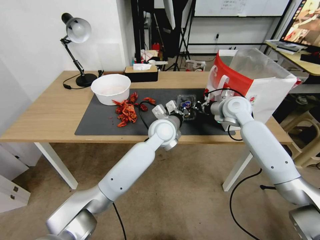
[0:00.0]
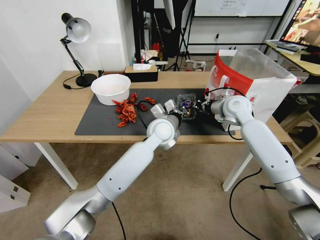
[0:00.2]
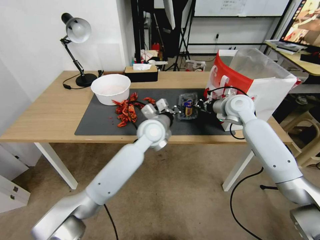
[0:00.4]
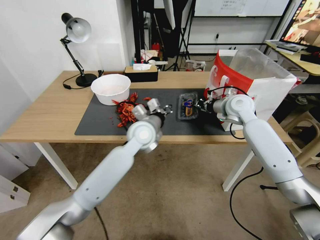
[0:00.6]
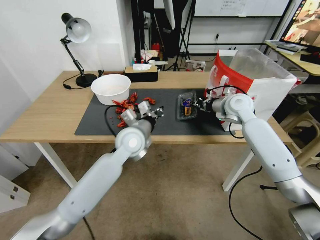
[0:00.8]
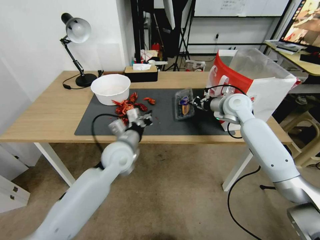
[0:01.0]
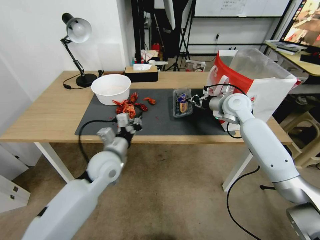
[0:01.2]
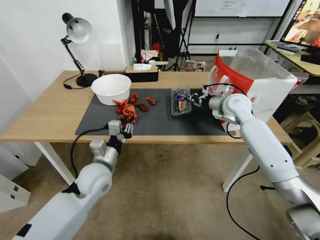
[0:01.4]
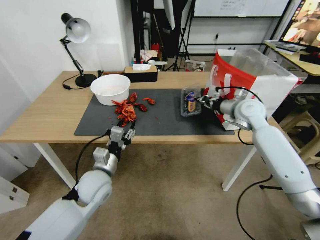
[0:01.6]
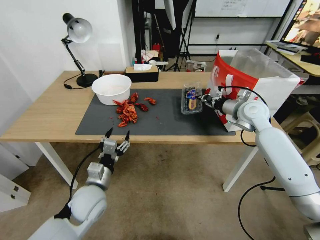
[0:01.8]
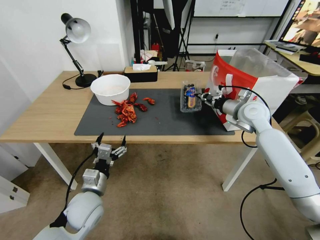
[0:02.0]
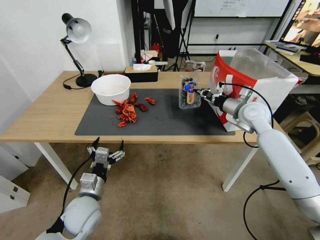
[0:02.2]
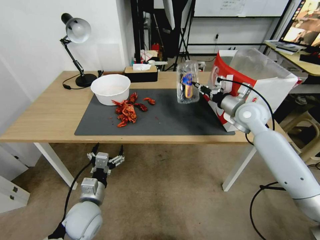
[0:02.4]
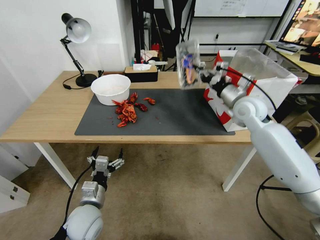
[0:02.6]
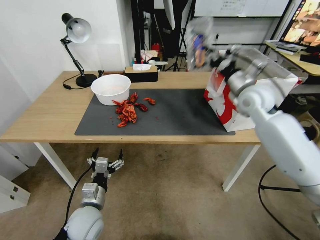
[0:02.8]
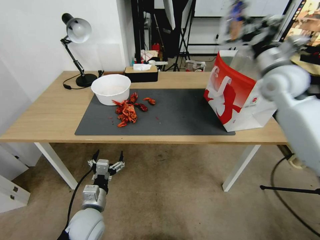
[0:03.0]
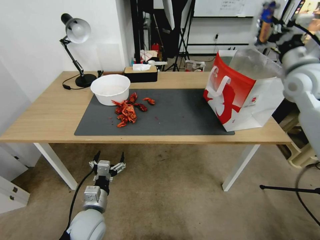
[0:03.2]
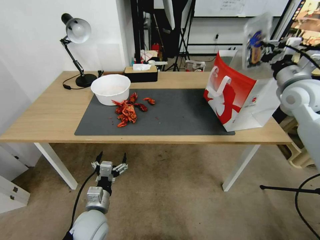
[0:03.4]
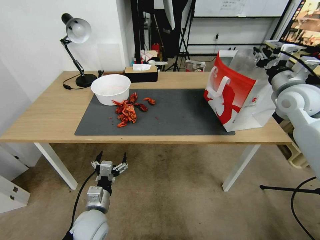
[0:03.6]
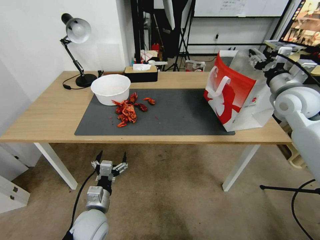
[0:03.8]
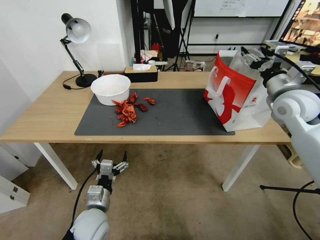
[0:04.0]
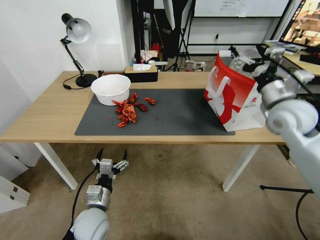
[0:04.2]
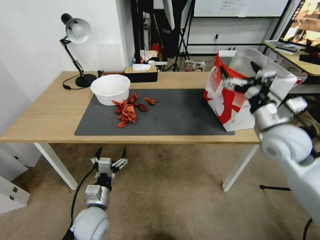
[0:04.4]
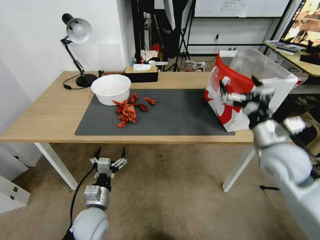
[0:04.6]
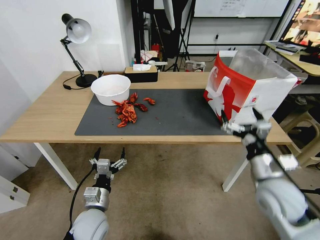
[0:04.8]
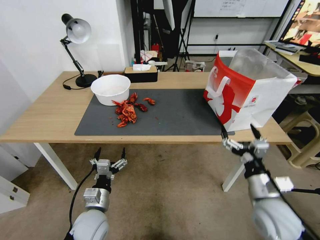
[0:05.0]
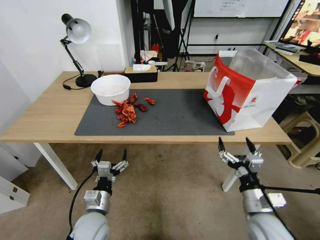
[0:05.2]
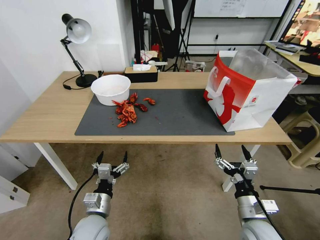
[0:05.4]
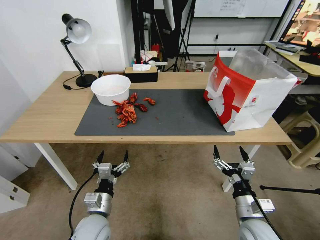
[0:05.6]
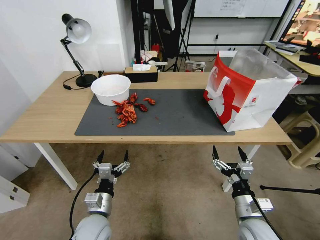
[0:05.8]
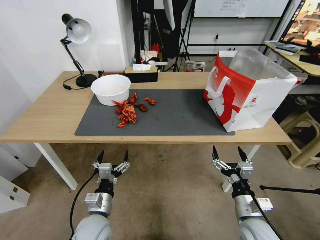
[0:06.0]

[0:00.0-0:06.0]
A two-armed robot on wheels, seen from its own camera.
Task of the whole recording: Close the takeout container lid, then place the container into the takeout bag.
0:00.0 to 0:01.6: The left gripper heads to the left and backward, covering roughly 25 cm, and opens.
0:01.6 to 0:03.0: The left gripper is displaced backward and downward by approximately 10 cm, and opens up, while the right gripper moves upward, roughly 15 cm.
0:03.0 to 0:04.4: The right gripper shifts approximately 15 cm backward and downward, and opens up.
0:04.4 to 0:06.0: The right gripper is displaced downward and backward by roughly 30 cm.

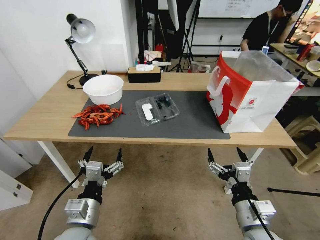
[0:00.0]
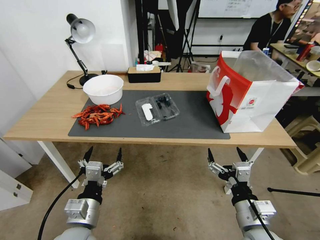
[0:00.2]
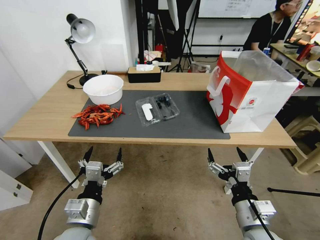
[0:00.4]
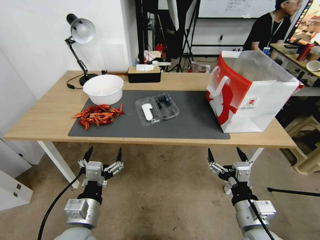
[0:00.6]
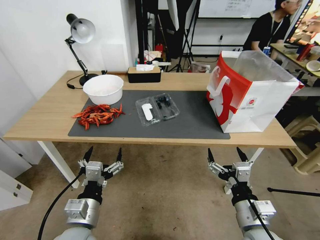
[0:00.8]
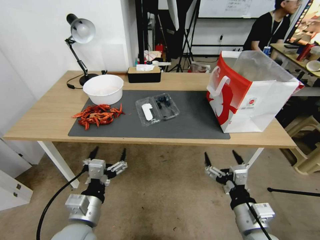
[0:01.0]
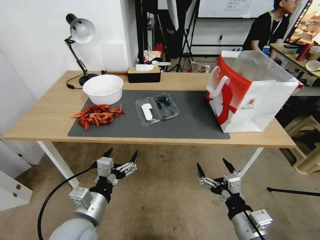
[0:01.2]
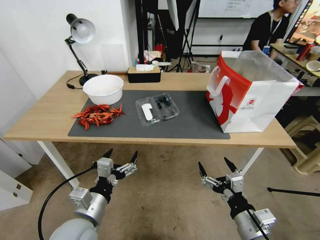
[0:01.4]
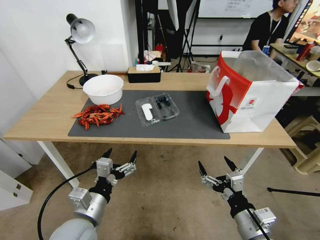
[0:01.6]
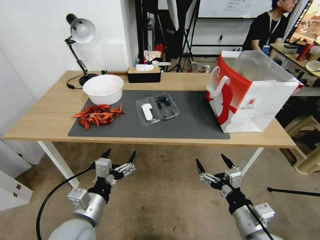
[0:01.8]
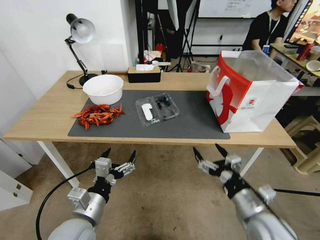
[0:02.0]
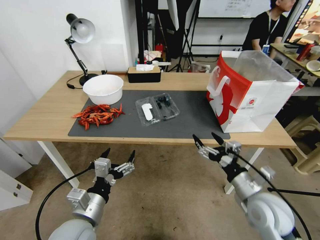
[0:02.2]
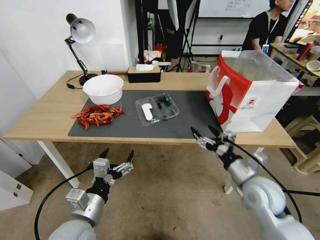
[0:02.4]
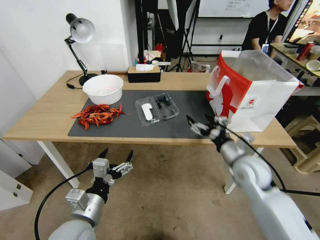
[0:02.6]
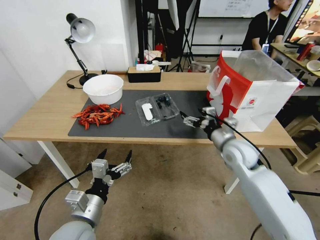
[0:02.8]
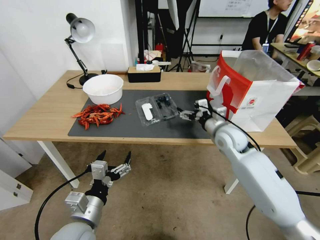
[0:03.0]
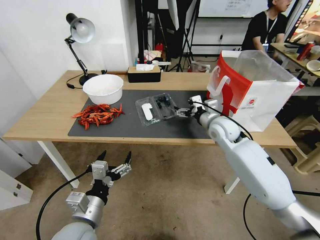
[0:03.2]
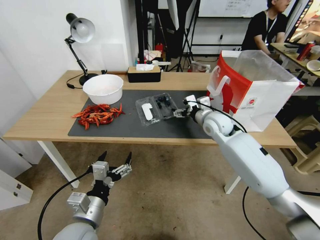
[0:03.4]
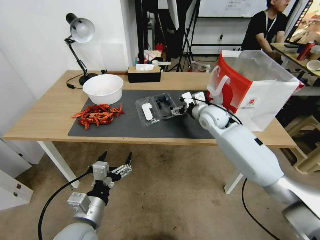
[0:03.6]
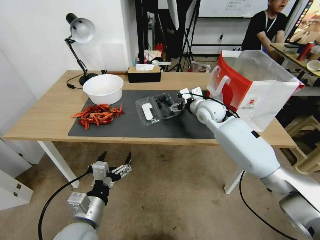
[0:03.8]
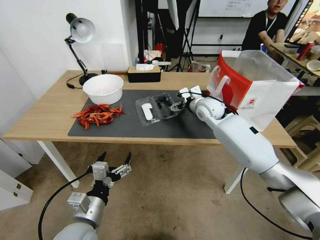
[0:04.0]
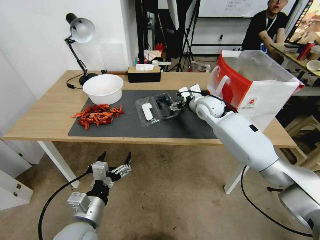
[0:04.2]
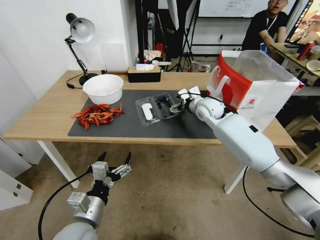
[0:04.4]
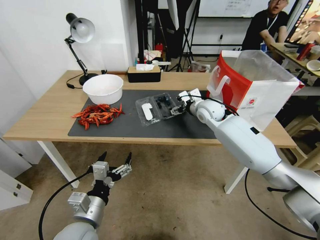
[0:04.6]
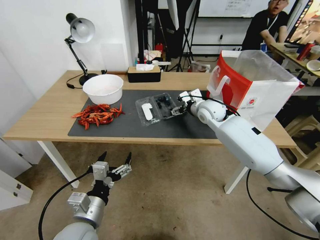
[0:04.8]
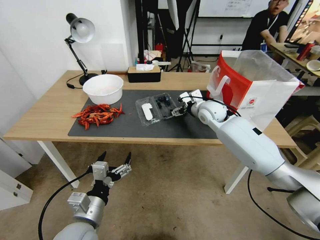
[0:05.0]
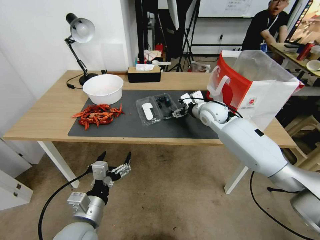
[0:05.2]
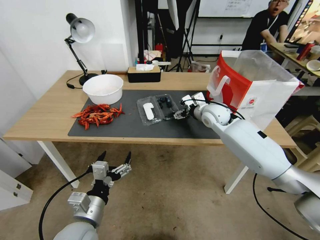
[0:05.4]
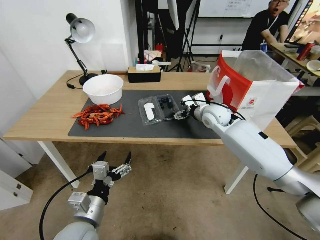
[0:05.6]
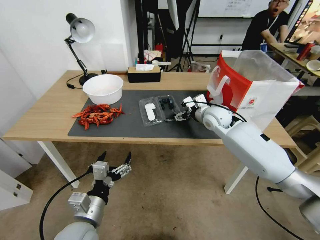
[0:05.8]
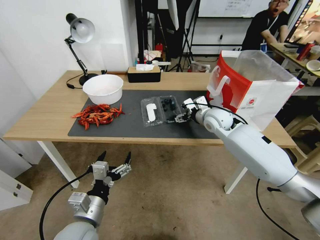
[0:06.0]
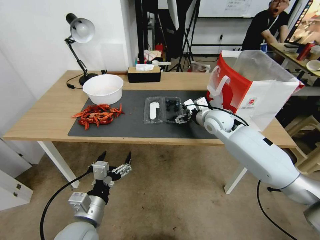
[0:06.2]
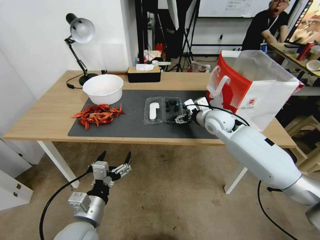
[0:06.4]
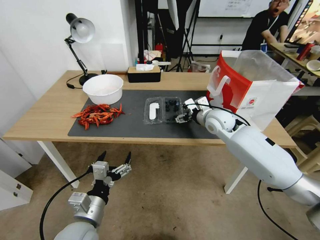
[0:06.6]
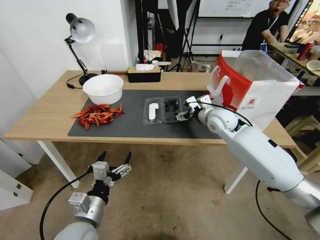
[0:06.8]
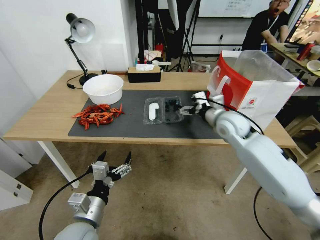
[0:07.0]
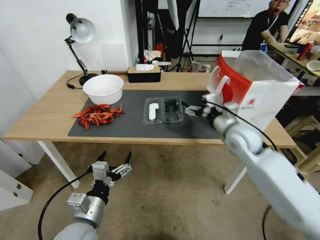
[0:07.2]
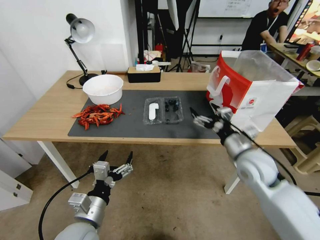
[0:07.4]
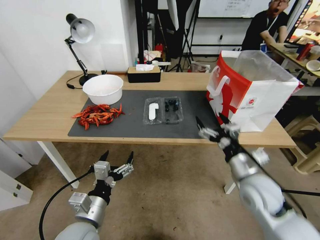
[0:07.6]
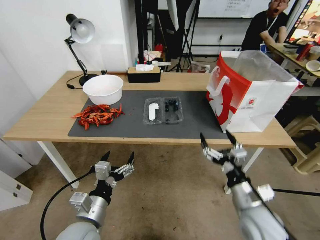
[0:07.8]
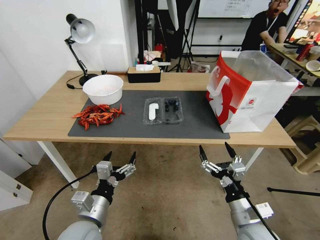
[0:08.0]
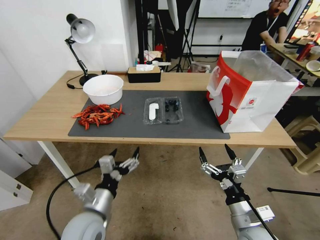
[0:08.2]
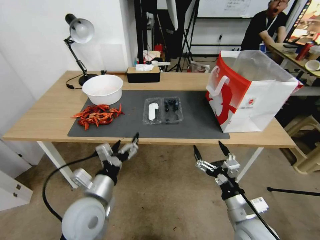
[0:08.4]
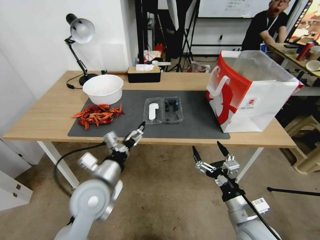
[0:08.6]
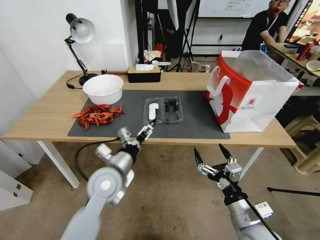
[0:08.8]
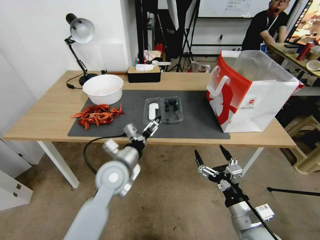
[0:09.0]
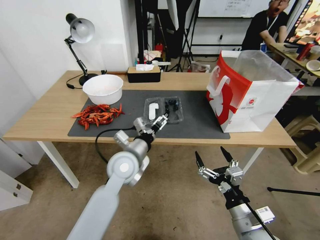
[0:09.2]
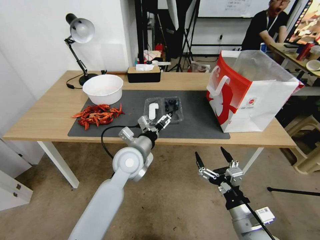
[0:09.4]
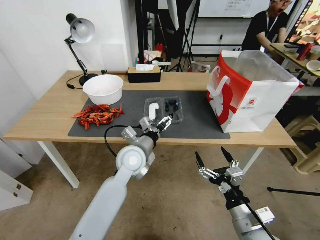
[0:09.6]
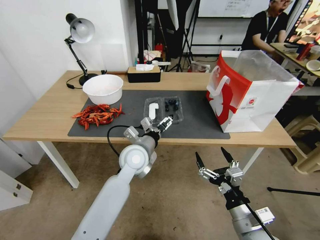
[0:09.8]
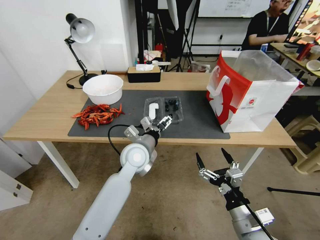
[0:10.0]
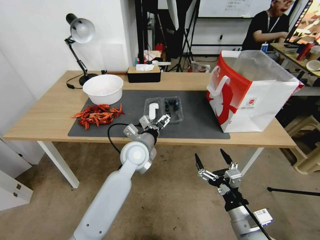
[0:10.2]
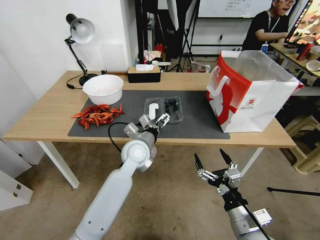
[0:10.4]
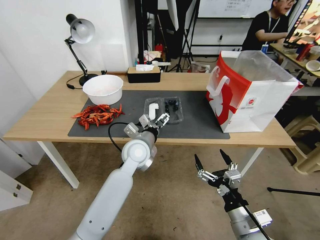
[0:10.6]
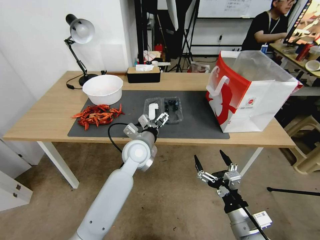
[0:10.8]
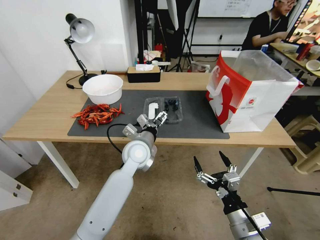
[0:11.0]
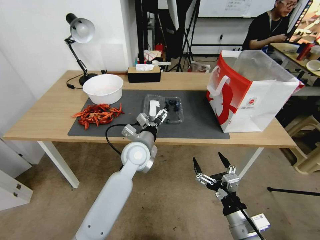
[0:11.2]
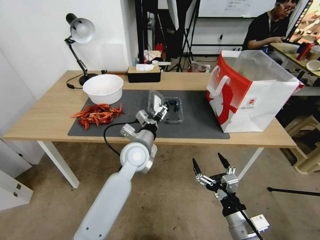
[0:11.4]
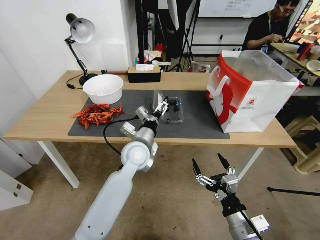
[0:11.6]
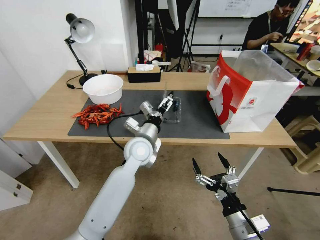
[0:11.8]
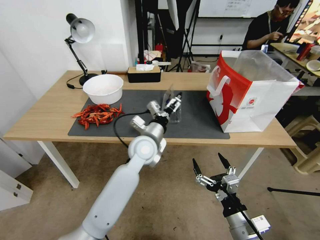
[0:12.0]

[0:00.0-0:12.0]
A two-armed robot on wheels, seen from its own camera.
Task of the whole recording: Close the takeout container lid, then place the container into the takeout bag.
0:01.6 to 0:03.0: The right gripper goes about 30 cm forward.
0:03.0 to 0:04.4: The right gripper travels forward by roughly 10 cm.
0:04.4 to 0:06.0: The right gripper shifts by roughly 5 cm.
0:06.0 to 0:07.6: The right gripper shifts about 25 cm backward.
0:07.6 to 0:09.0: The left gripper is displaced forward and to the right by roughly 15 cm. The right gripper shifts about 10 cm backward.
0:09.0 to 0:10.4: The left gripper is displaced forward and to the right by approximately 10 cm.

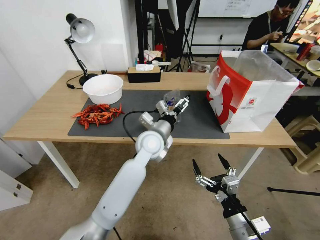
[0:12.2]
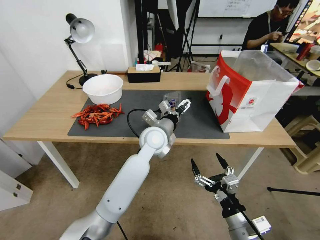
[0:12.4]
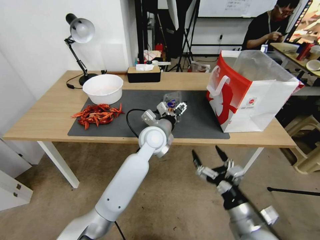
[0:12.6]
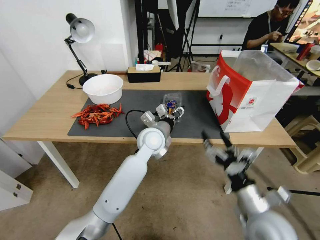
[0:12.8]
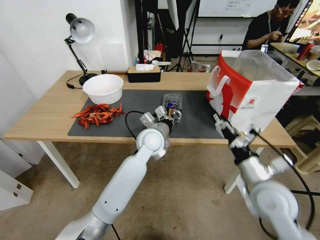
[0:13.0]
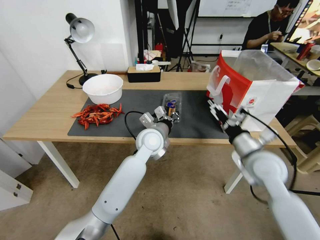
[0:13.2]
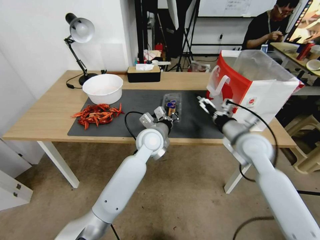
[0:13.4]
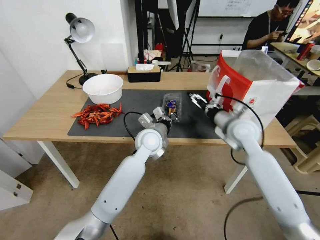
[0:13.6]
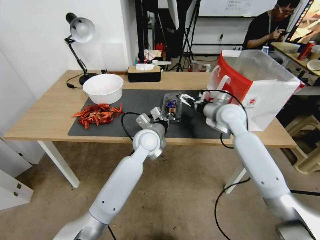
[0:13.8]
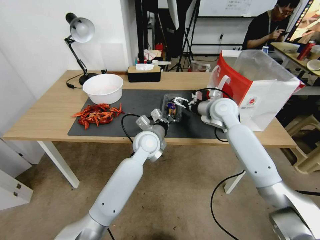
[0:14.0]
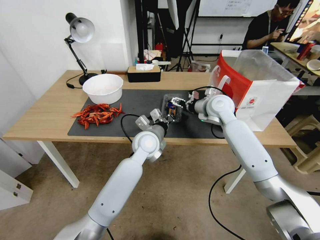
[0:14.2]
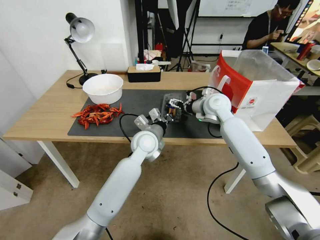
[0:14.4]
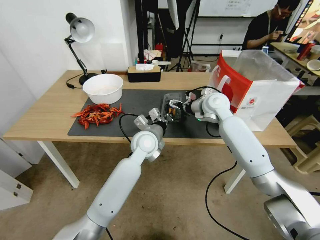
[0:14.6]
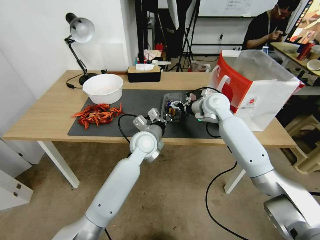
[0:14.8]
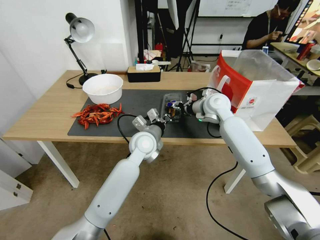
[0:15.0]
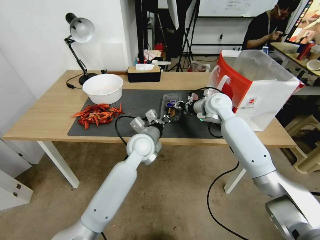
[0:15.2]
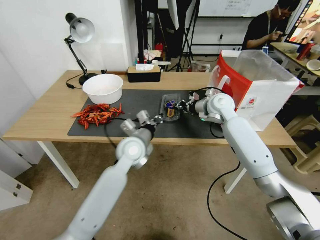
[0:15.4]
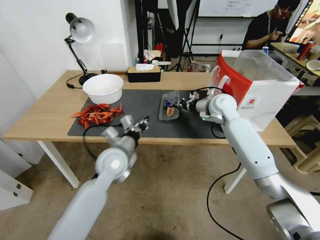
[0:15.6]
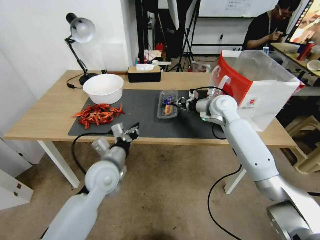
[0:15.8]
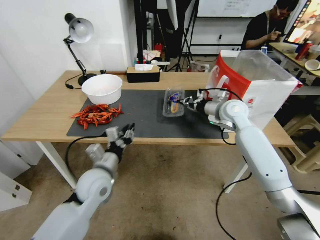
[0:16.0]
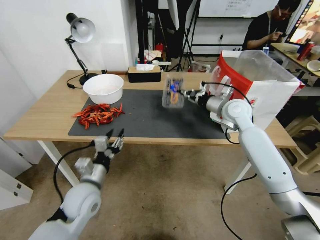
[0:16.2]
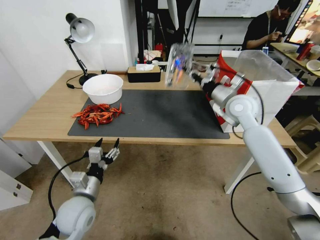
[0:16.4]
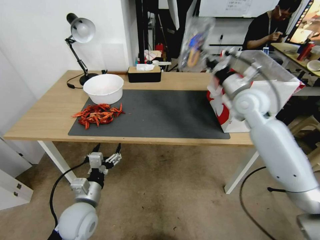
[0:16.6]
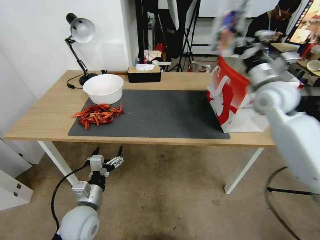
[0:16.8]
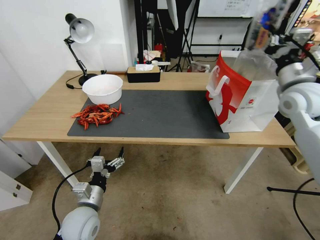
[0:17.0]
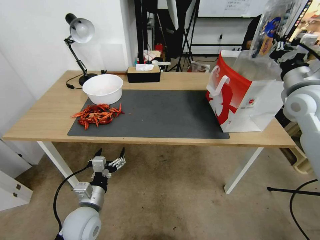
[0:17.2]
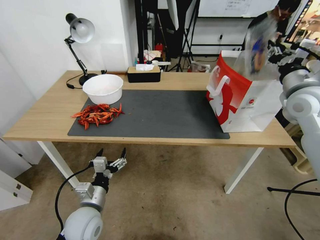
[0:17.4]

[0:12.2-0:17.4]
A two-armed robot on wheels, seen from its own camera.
Task of the whole recording: Close the takeout container lid, then place the container into the takeout bag.
0:12.2 to 0:14.0: The left gripper closes its fingers. Meanwhile the right gripper is displaced forward and upward by roughly 40 cm.
0:14.0 to 0:15.6: The left gripper is displaced to the left and backward by roughly 10 cm, while the right gripper closes up.
0:15.6 to 0:17.4: The right gripper travels to the right, backward and upward by roughly 25 cm; the left gripper is displaced backward, downward and to the left by about 20 cm, and opens.
